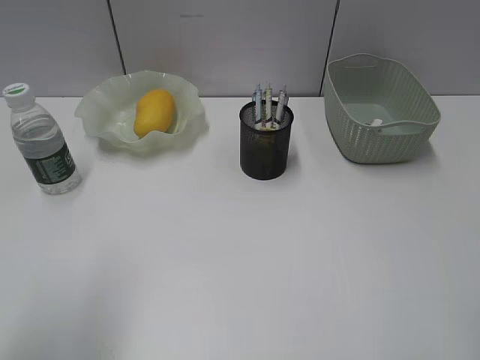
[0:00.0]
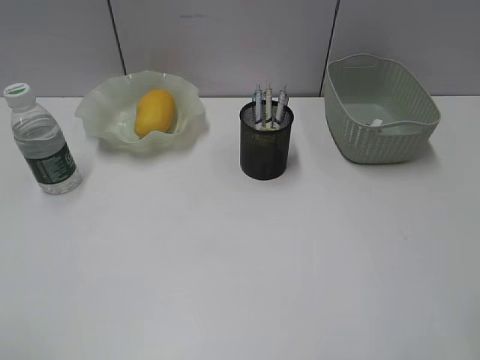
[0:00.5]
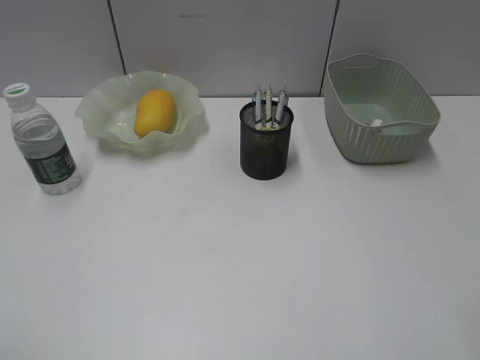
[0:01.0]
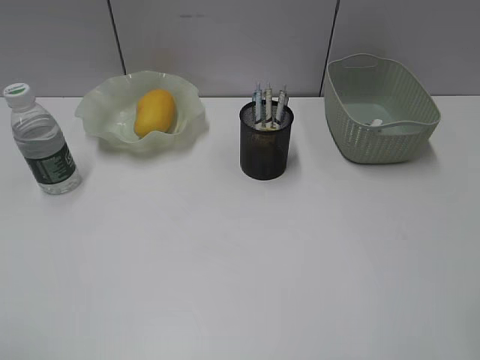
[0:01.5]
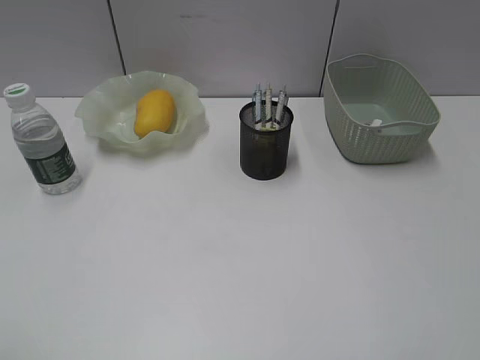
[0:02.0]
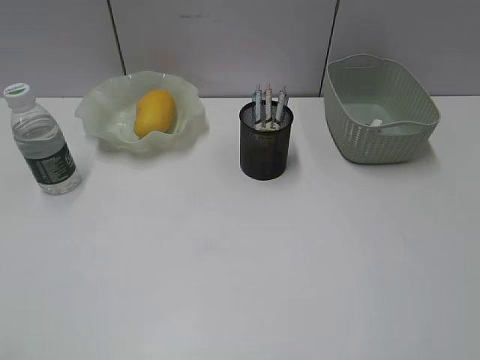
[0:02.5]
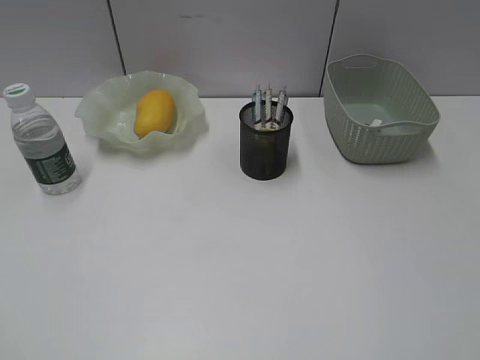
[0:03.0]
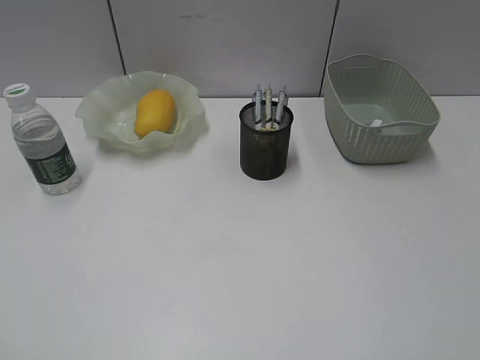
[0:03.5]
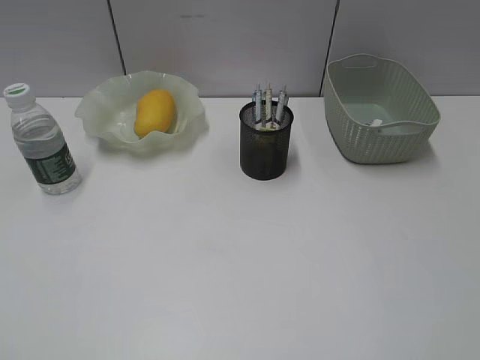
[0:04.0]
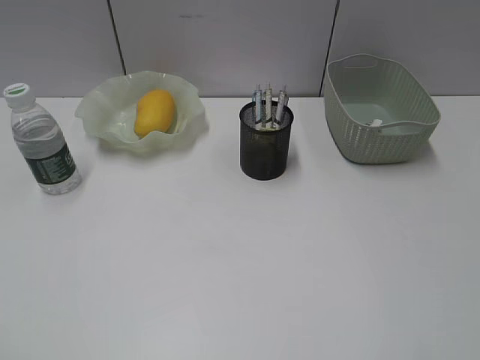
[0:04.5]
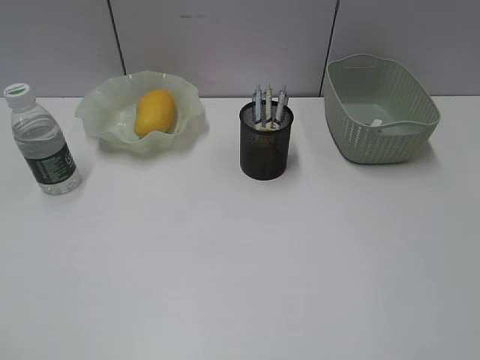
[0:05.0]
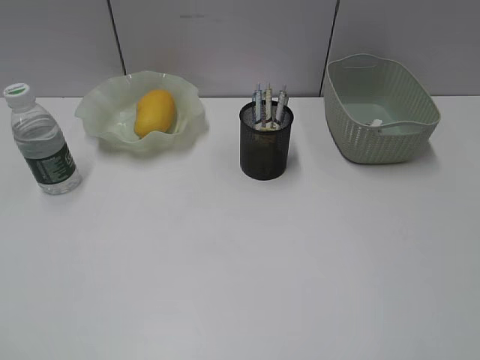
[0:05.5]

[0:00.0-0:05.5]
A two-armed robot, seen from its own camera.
0.0 to 2.0 s: The left gripper is displaced backward and to the left by approximately 15 cm.

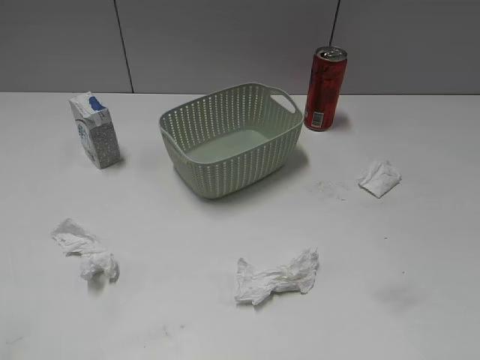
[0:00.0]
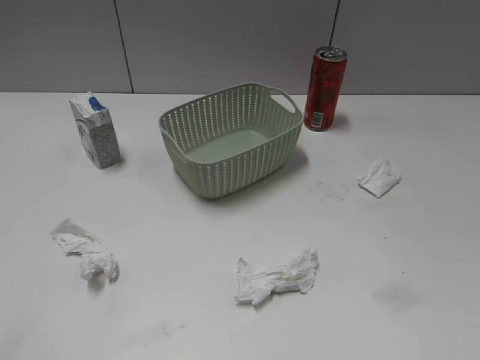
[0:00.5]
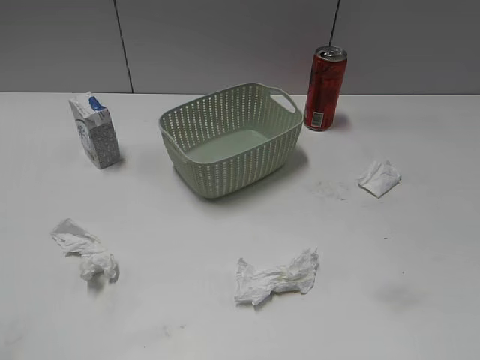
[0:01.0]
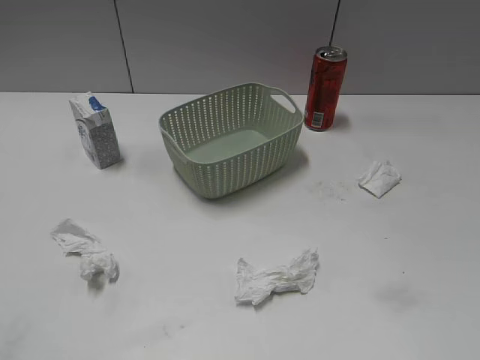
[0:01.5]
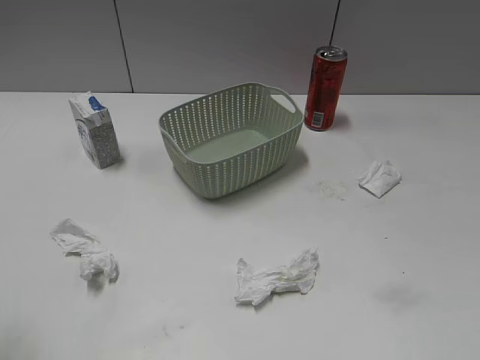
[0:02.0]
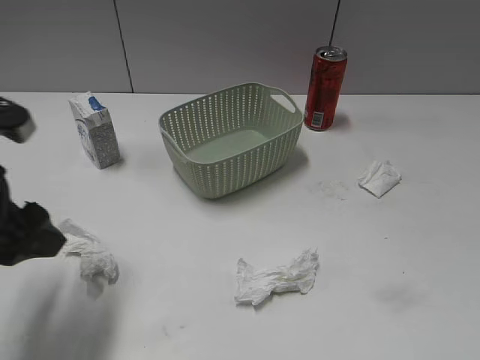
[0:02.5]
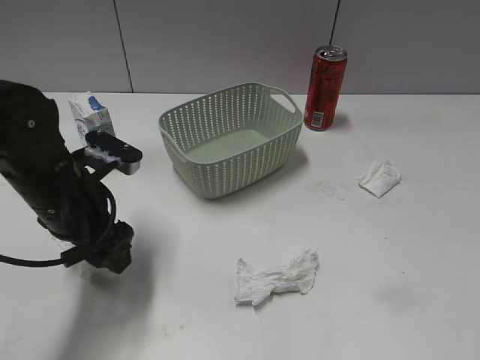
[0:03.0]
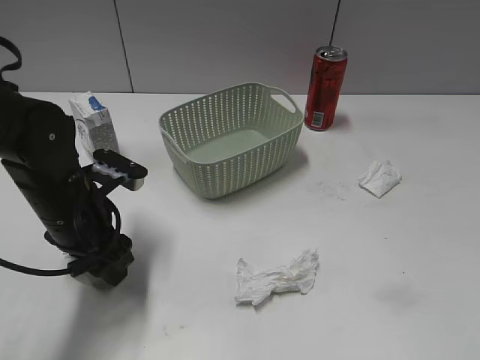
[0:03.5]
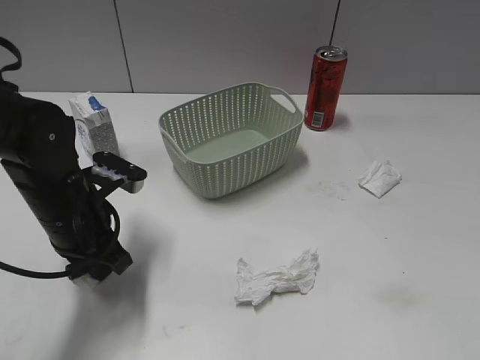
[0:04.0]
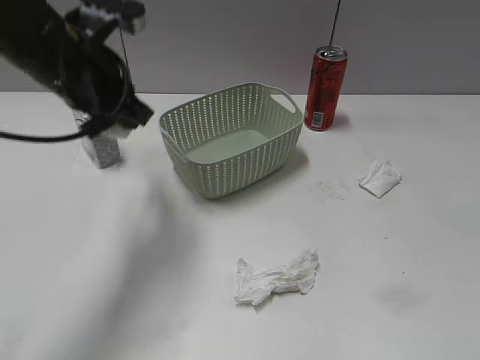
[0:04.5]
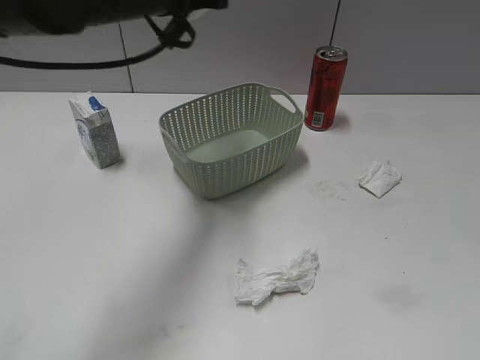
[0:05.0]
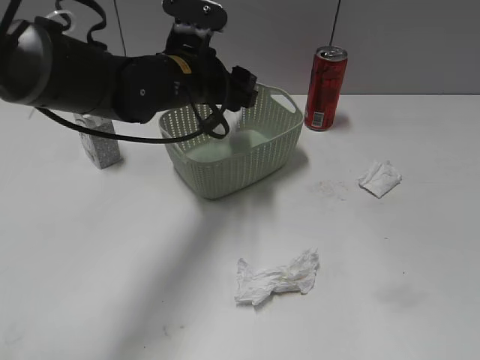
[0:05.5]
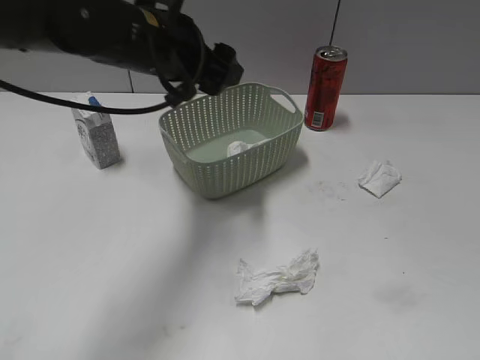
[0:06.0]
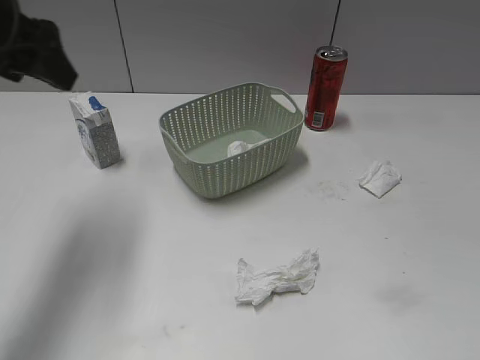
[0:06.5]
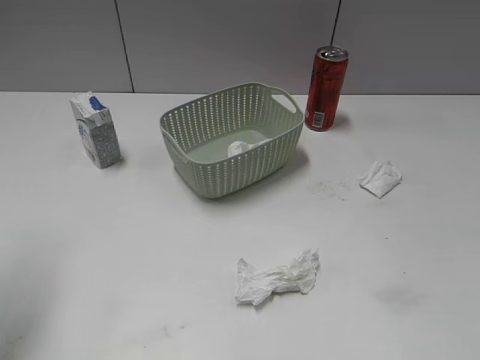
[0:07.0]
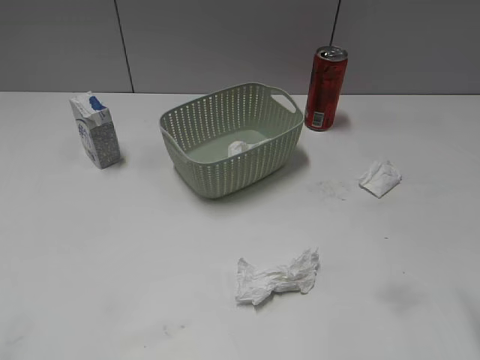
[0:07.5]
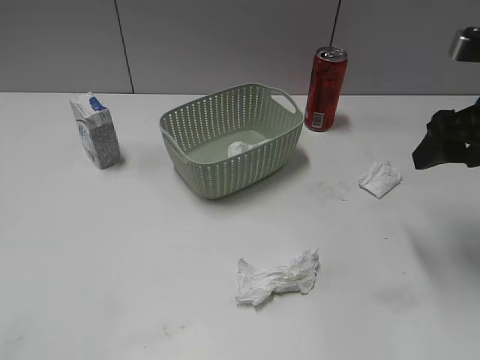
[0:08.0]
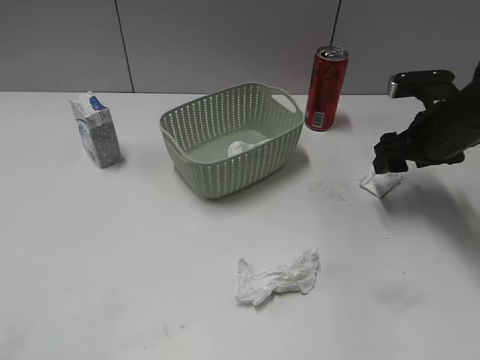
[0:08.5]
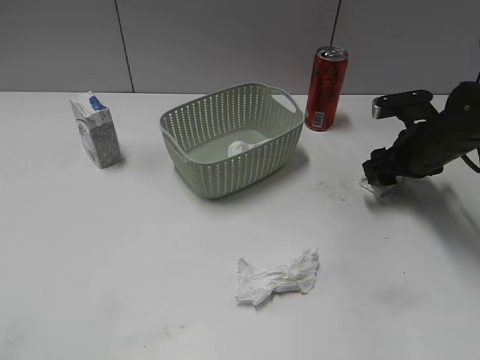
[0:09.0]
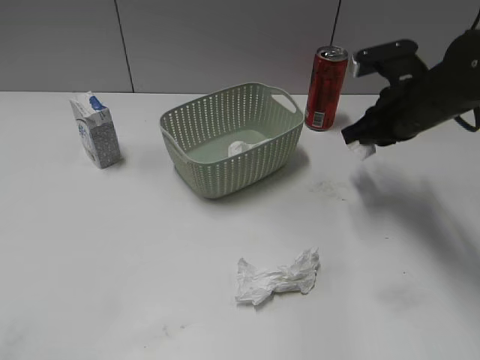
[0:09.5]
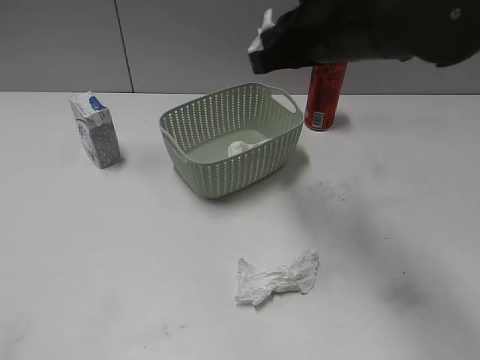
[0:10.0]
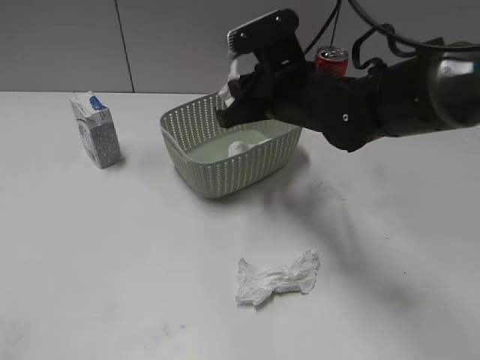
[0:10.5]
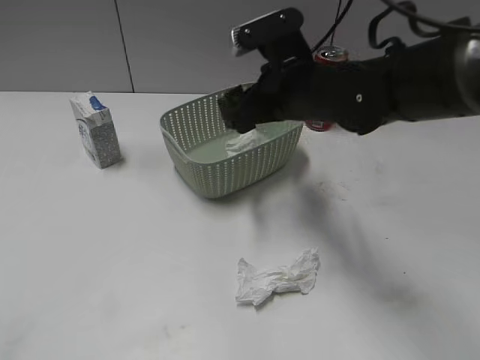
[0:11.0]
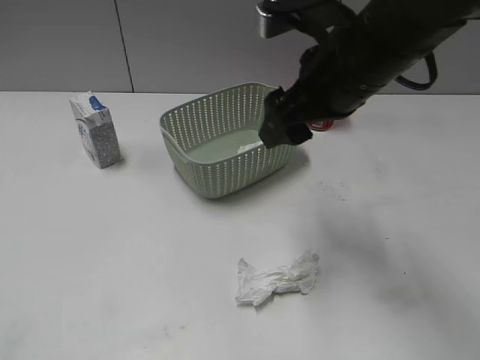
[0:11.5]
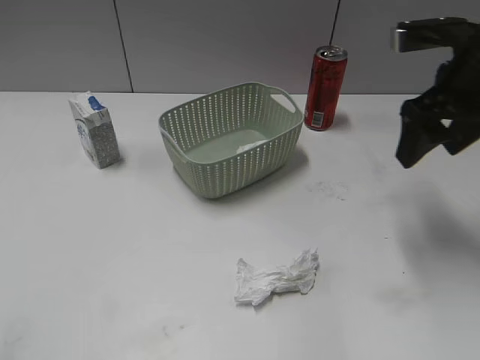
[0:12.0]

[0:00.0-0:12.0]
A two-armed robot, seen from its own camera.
Step, 2.5 to 3.5 s: Grasp the waste paper with left gripper.
Step, 4.0 to 6.0 s: Place the waste paper in the basket with left gripper.
Step, 6.5 to 9.0 s: Grasp the waste paper with right gripper.
Step, 9.5 to 11.0 s: Place the waste paper in the basket with right gripper.
2.0 to 4.0 s: The left gripper heads downward, forward and to the right, covering roughly 25 cm, and closes up.
4.0 to 6.0 s: The left gripper goes up and down, some 15 cm each way, reversing 2 times, and opens.
6.0 to 8.0 s: The right gripper is displaced forward by about 30 cm. The left gripper goes some 40 cm backward and to the left.
8.0 to 10.0 s: The right gripper shifts about 15 cm to the left, moves roughly 15 cm downward and comes back, and closes.
10.0 to 12.0 s: The left gripper shifts approximately 5 cm forward, while the right gripper is displaced to the right by approximately 15 cm, and opens up.

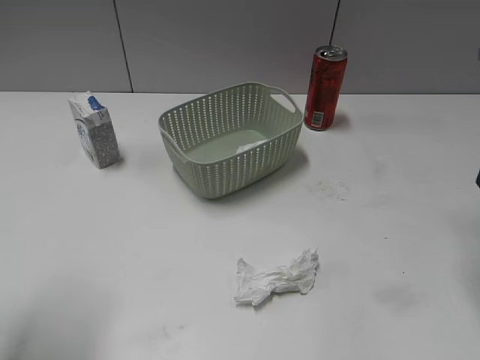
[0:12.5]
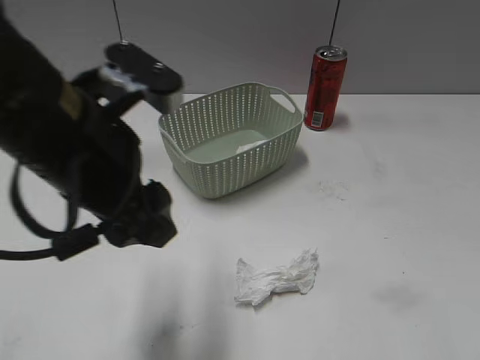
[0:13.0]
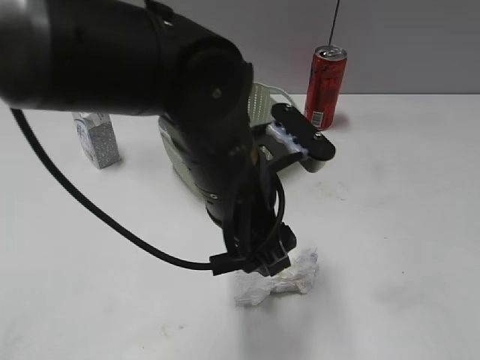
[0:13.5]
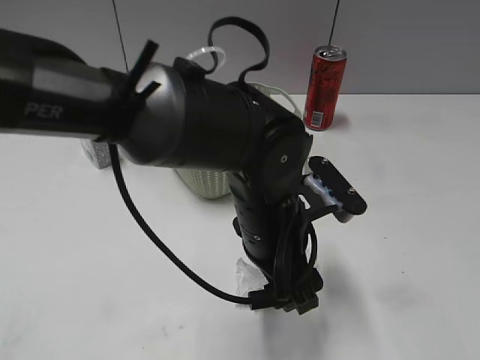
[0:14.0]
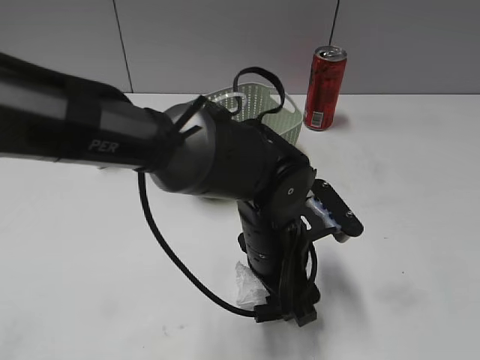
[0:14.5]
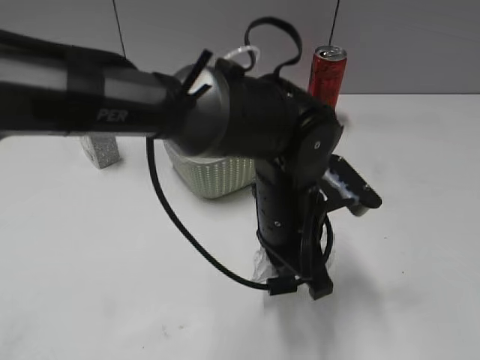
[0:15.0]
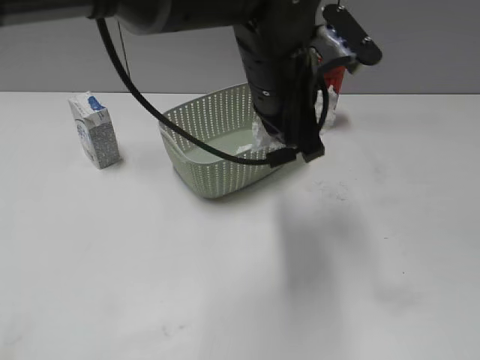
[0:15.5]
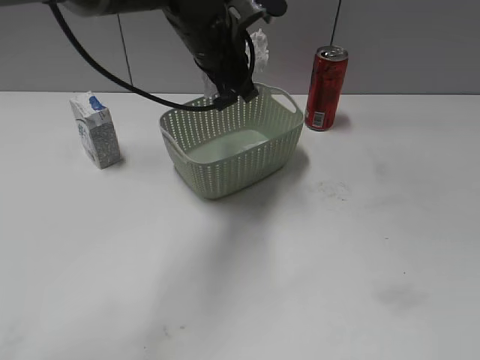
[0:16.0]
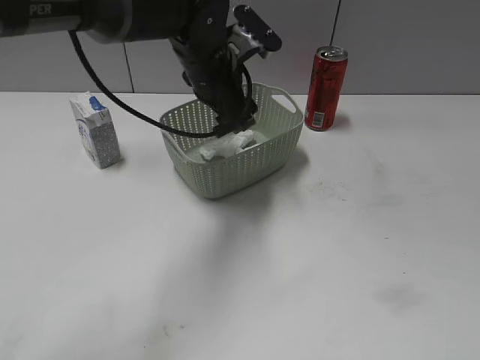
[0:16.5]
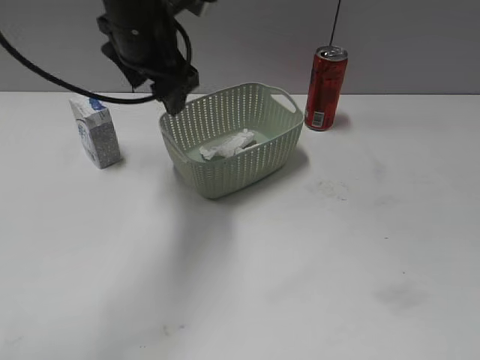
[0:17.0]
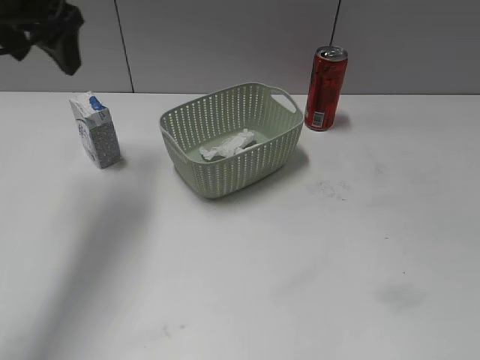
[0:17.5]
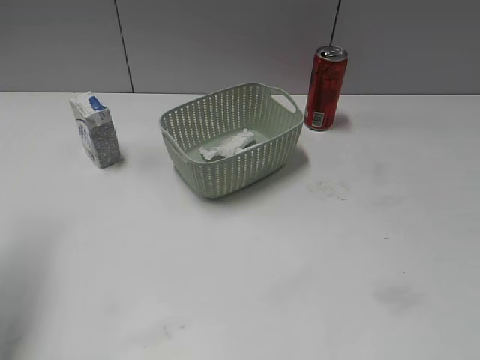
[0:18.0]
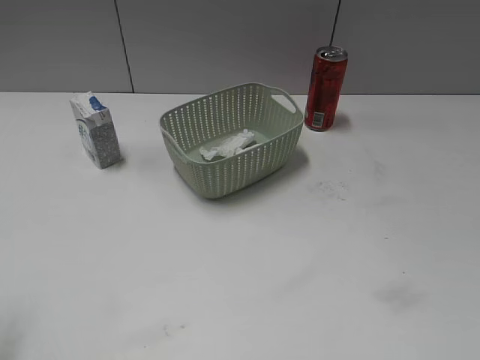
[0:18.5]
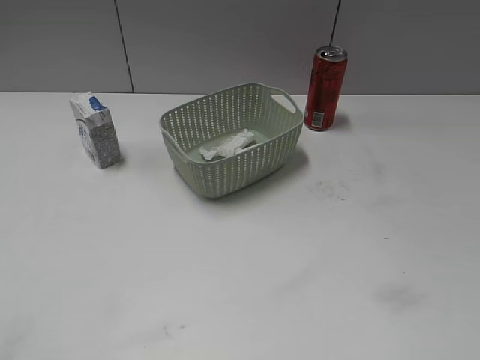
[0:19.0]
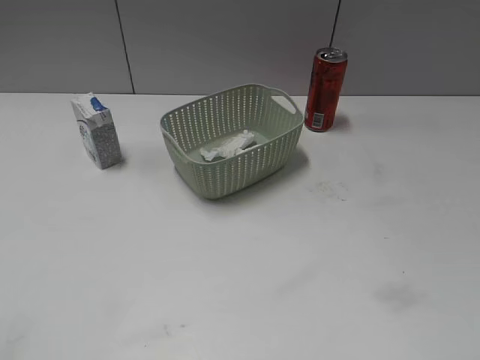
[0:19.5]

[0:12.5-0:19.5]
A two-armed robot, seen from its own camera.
Step, 12.5 to 15.0 s: Grasp the waste paper with left gripper.
Step, 15.5 to 16.5 s: Place the waste paper in the basket with left gripper.
12.5 to 14.5 s: The right gripper moves backward, roughly 25 cm. The left gripper heads to the right and downward, covering approximately 35 cm.
14.5 to 16.0 s: The left gripper moves forward and upward, roughly 20 cm, and closes its fingers.
16.0 to 17.5 s: The left gripper heads to the left and upward, covering about 25 cm, and opens up.
17.5 to 19.5 s: The left gripper heads backward, covering approximately 35 cm.

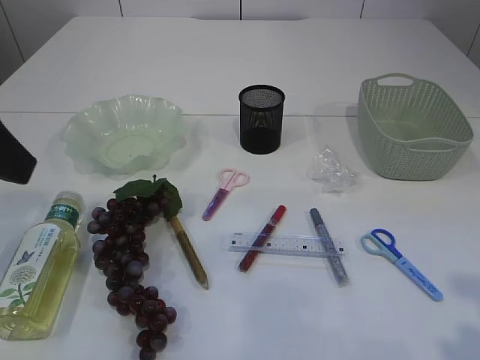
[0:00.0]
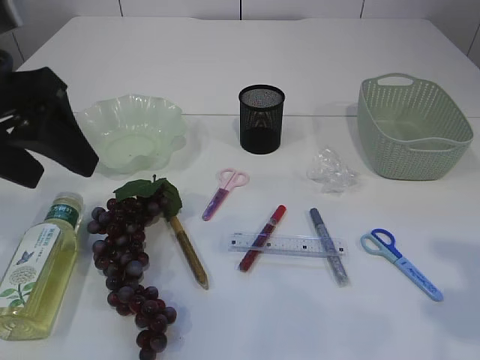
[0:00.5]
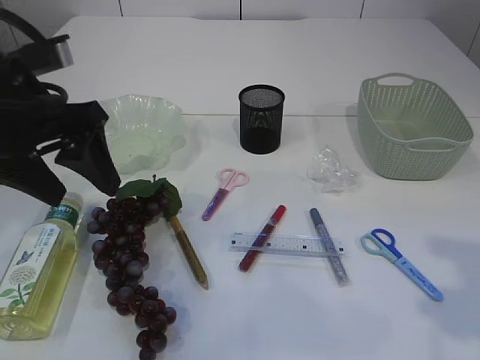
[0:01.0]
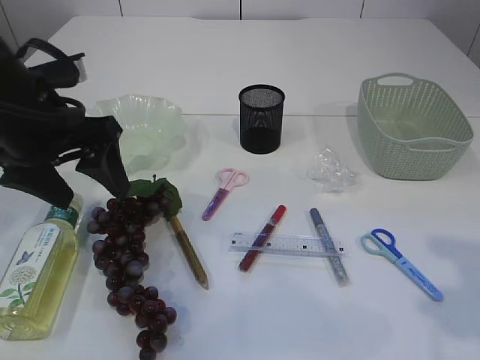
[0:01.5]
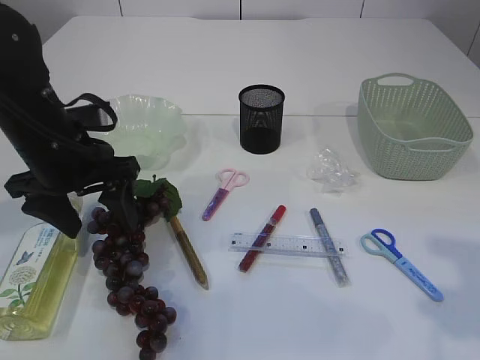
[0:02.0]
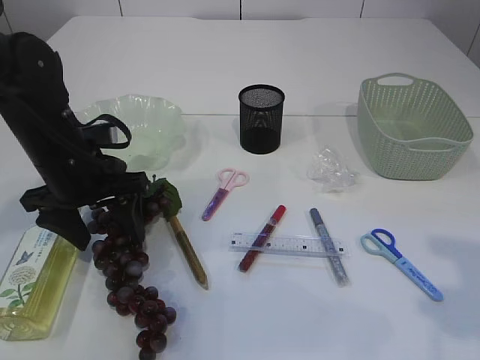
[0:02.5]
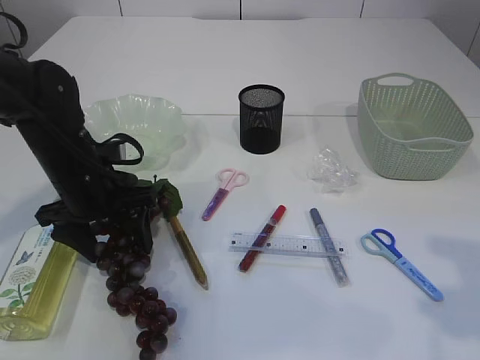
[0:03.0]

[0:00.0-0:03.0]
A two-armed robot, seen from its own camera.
0.0 to 1.5 s: The left gripper goes some 15 cm forward and downward; the right gripper moves forward, some 5 cm.
1.5 to 3.0 s: The left gripper heads downward, covering approximately 10 cm.
